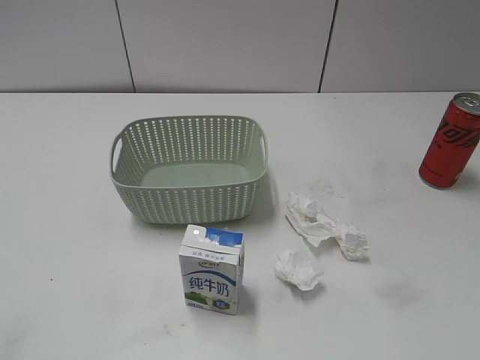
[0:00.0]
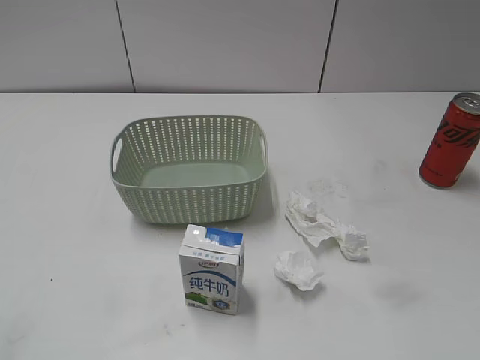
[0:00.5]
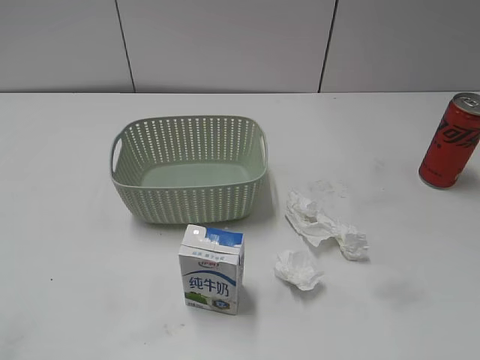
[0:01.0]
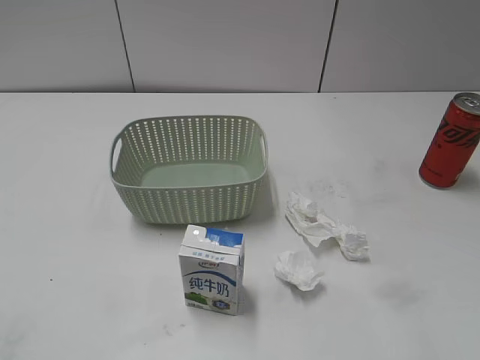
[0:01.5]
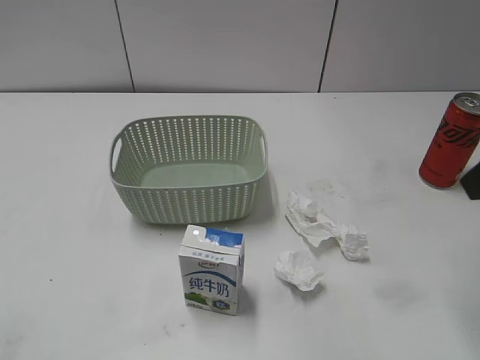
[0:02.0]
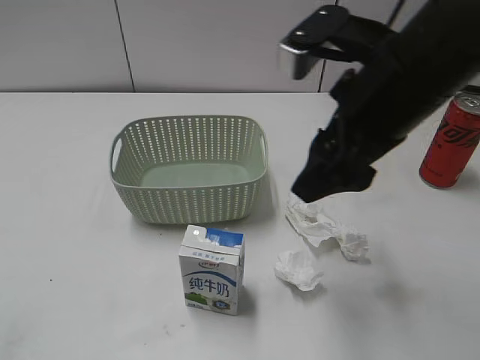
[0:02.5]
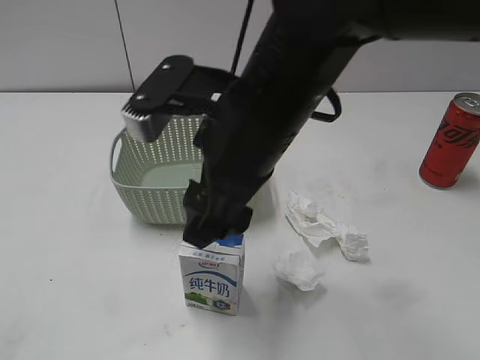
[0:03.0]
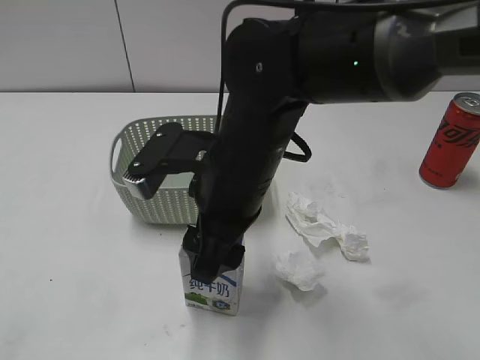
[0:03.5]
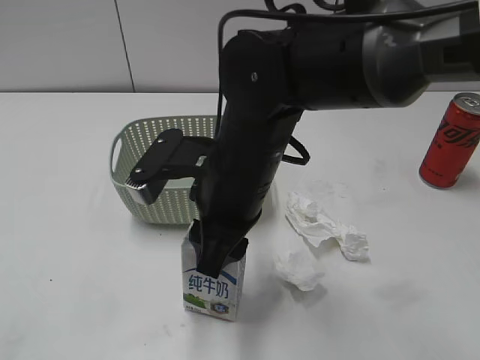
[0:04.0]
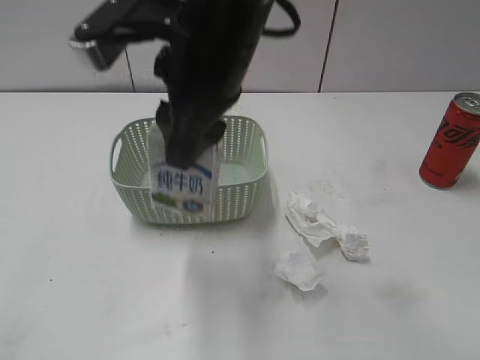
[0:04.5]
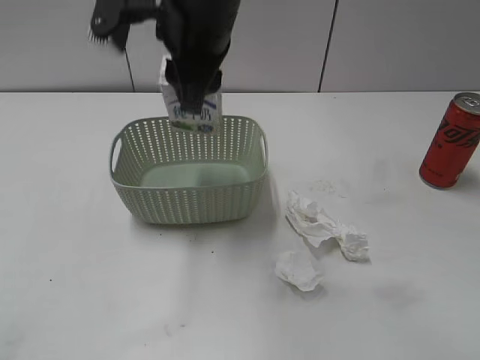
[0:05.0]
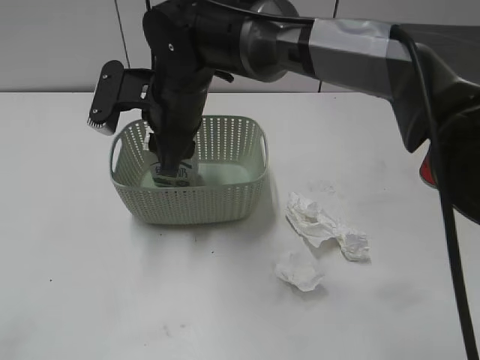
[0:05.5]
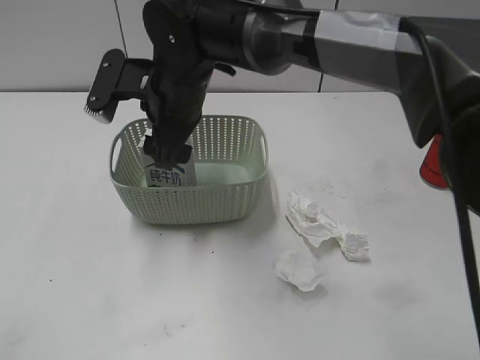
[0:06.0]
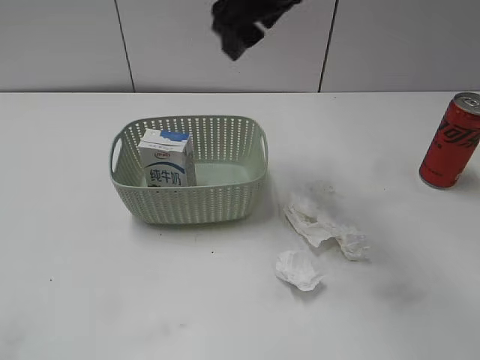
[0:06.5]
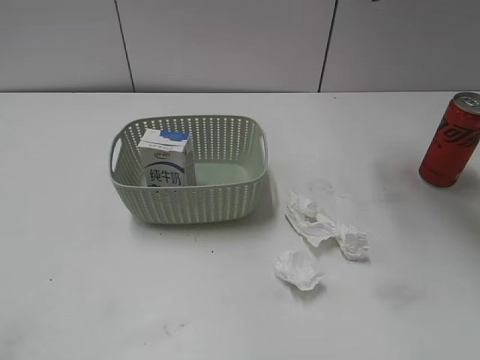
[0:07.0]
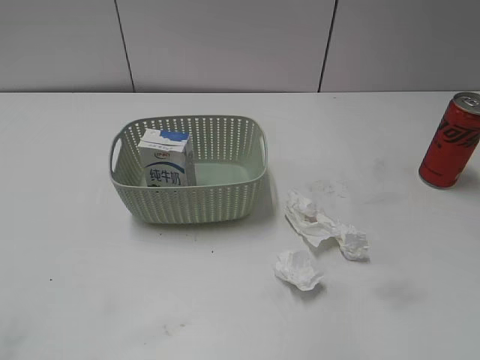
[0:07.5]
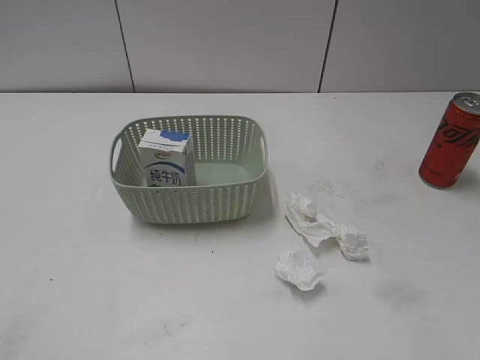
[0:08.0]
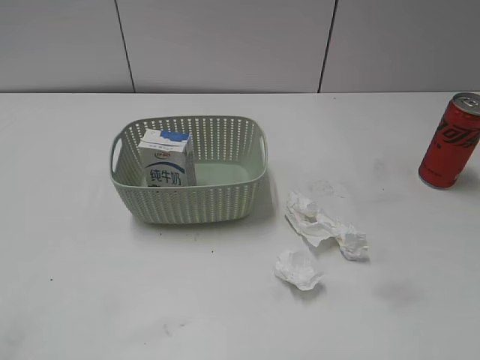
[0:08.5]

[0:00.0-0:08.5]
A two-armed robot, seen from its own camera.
Step, 0:02.0 to 0:03.5: Grasp the milk with right gripper.
Step, 0:04.0 to 0:06.0: Place the milk in the basket with right gripper.
0:02.0 to 0:04.0: The right gripper shifts about 30 cm to the left and downward, and closes its fingers.
0:04.0 to 0:06.5: The right gripper goes up and down, about 15 cm each way, reversing 2 times, and opens.
0:06.5 to 0:08.5: The right gripper goes some 40 cm backward and to the right.

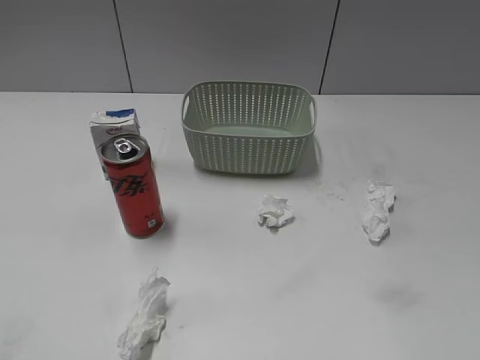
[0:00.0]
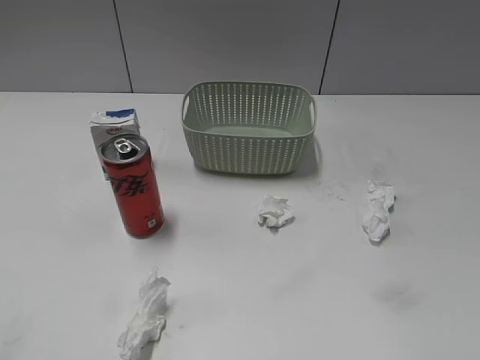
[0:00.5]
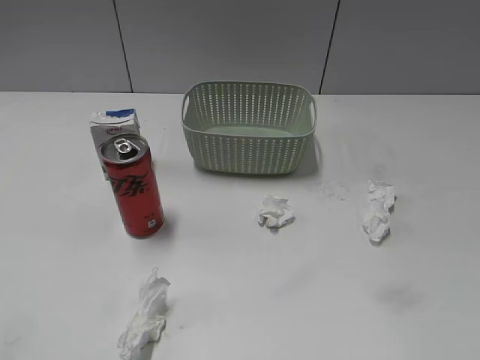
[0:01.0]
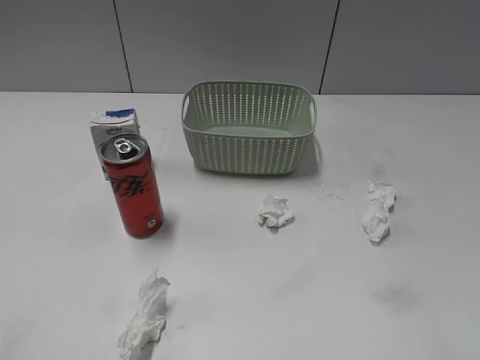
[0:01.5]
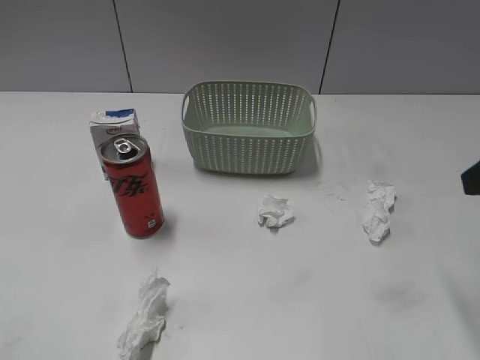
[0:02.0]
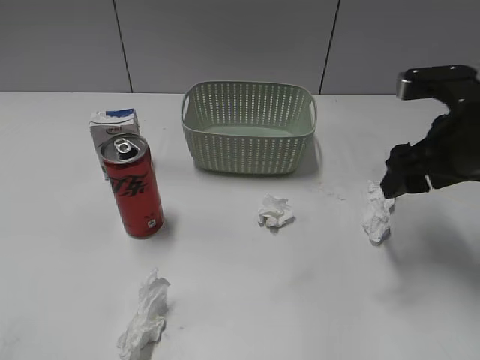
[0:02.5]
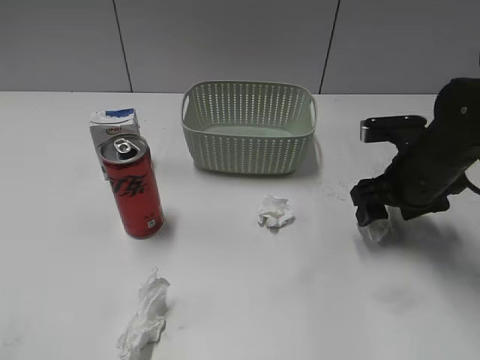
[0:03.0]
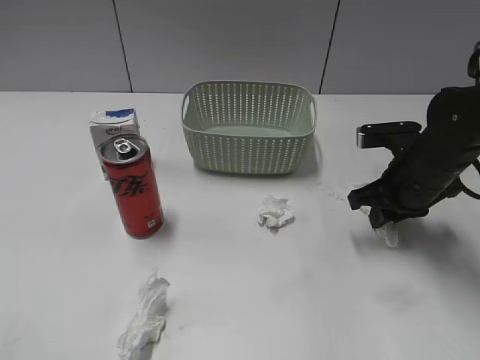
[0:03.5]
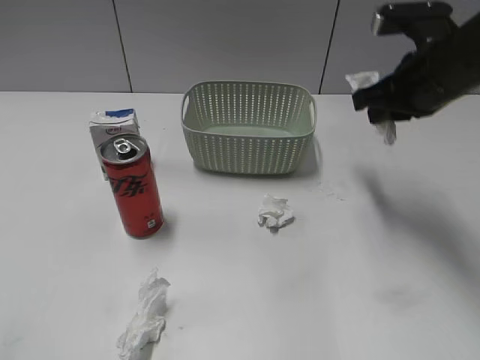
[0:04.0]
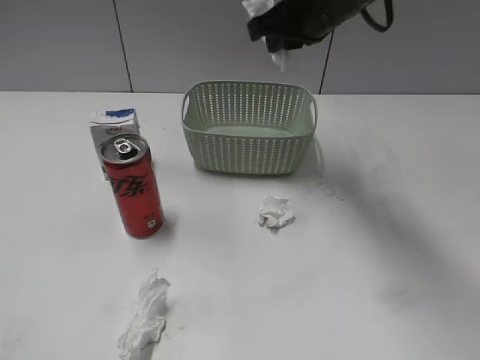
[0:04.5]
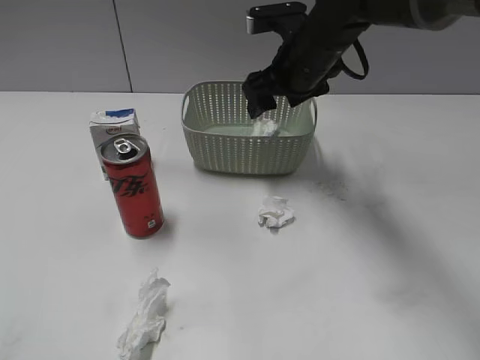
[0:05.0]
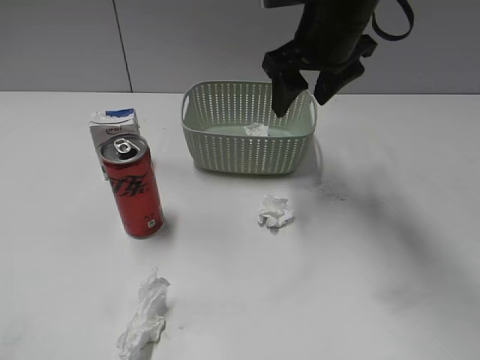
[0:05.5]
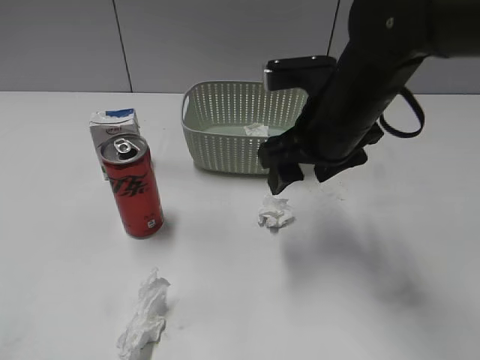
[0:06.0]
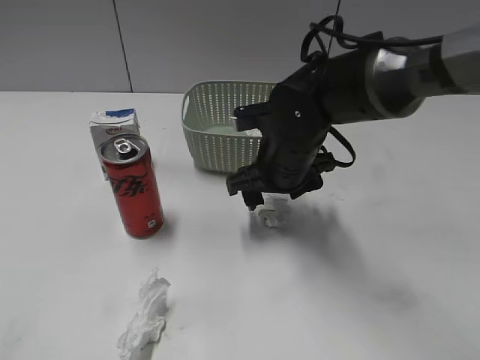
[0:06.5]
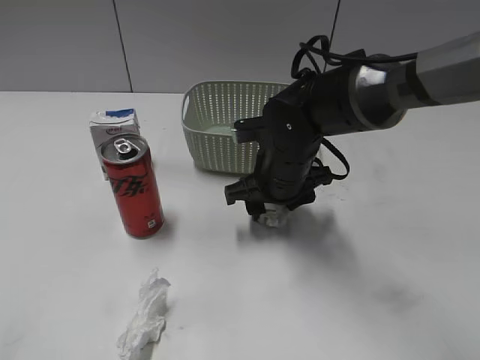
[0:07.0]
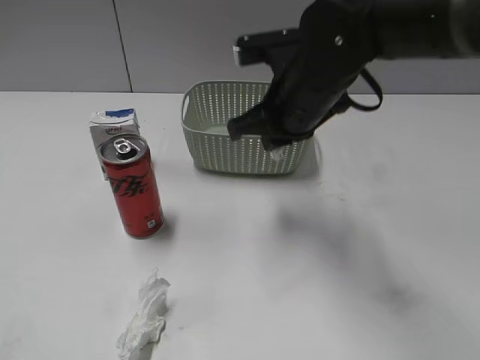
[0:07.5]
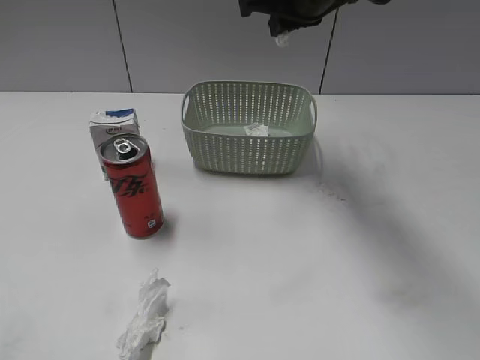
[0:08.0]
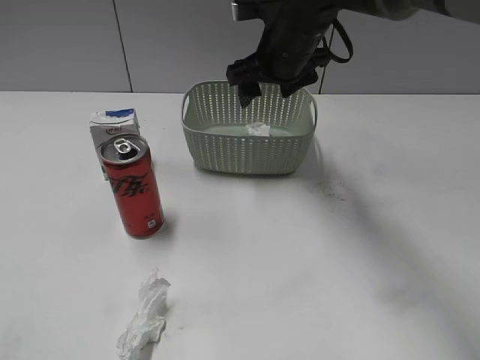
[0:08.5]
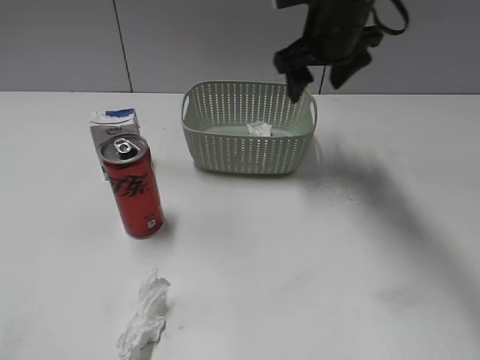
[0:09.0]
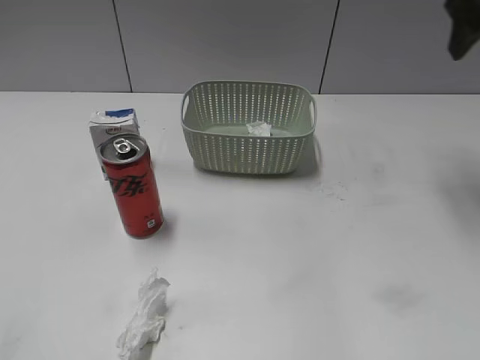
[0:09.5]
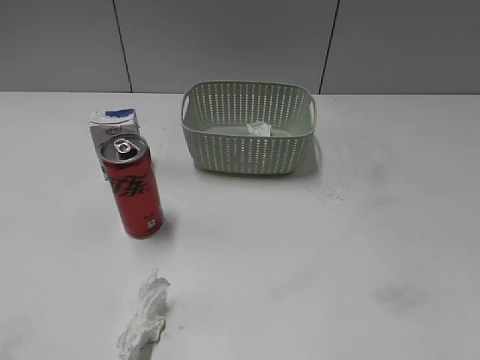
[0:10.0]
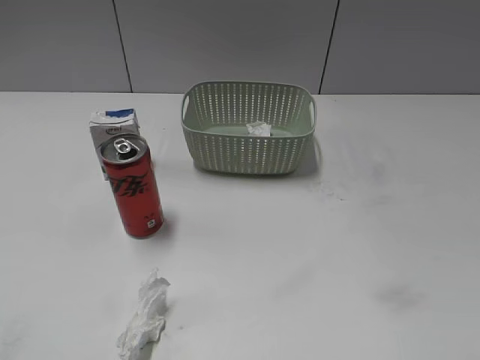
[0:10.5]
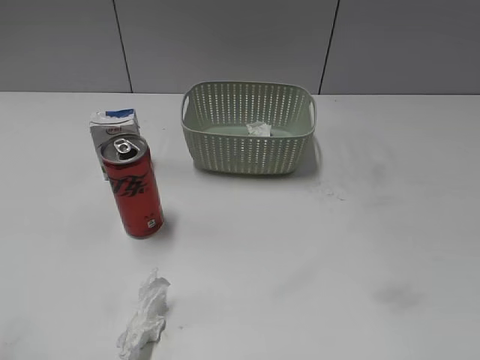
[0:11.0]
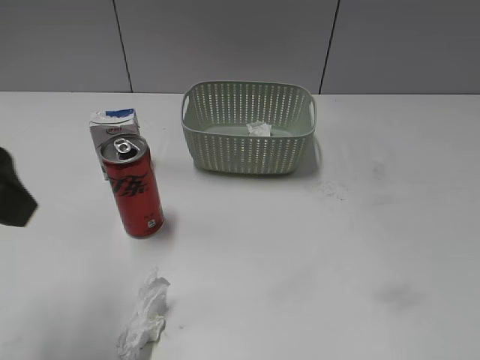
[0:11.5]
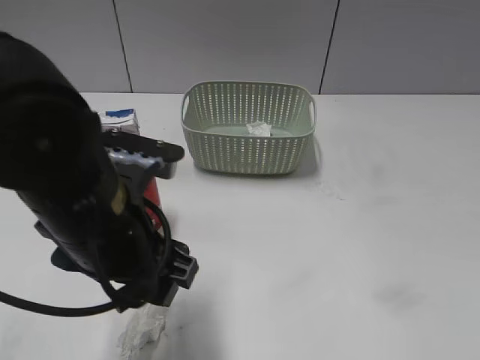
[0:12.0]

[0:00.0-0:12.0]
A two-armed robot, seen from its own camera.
Step, 0:02.0 to 0:03.5: Grasp the waste paper with right gripper.
Step, 0:04.0 to 0:05.0: Place the waste paper in the basket with right gripper.
Step, 0:05.5 to 0:07.0: Grasp the waste paper with right gripper.
Step, 0:07.5 to 0:08.5: Place the waste paper in the basket with right gripper.
0:02.0 to 0:04.0: The right gripper heads forward and to the left, covering approximately 15 cm, reaches about 15 cm downward, then returns, and closes.
0:04.0 to 0:06.0: The right gripper heads to the left, covering roughly 10 cm, goes forward and returns, roughly 10 cm each way, and opens.
0:06.0 to 0:08.0: The right gripper heads forward and upward, covering roughly 15 cm, and closes up.
0:08.0 to 0:10.0: The right gripper moves to the right and backward, roughly 30 cm, and opens its fingers.
0:10.0 to 0:12.0: The left gripper heads to the right, forward and downward, covering approximately 30 cm, while the right gripper shifts roughly 20 cm backward and downward.

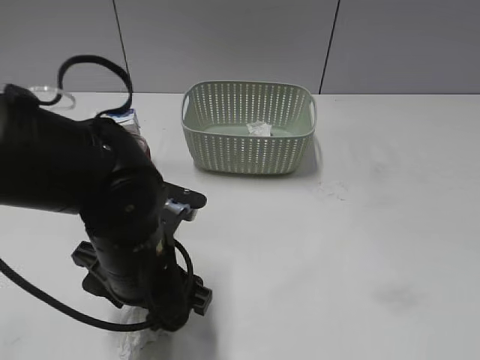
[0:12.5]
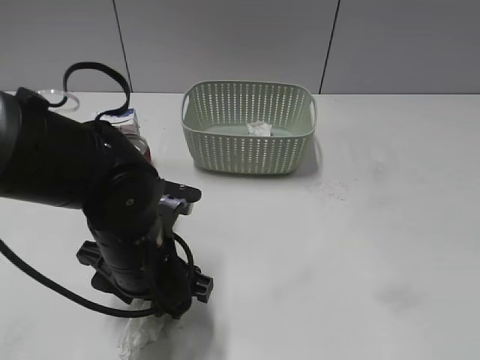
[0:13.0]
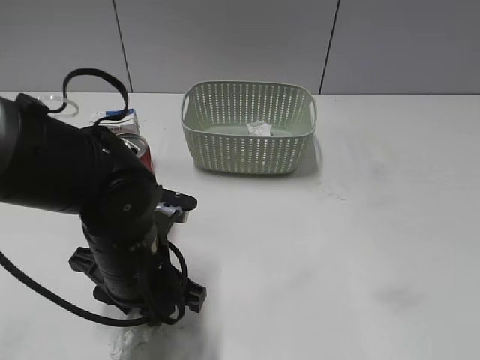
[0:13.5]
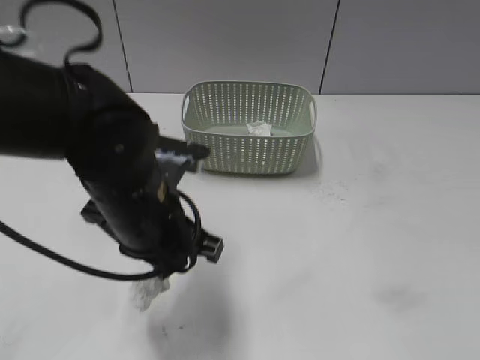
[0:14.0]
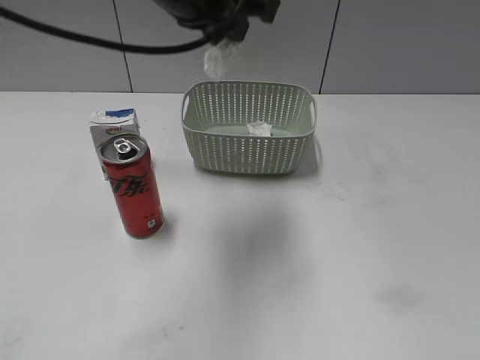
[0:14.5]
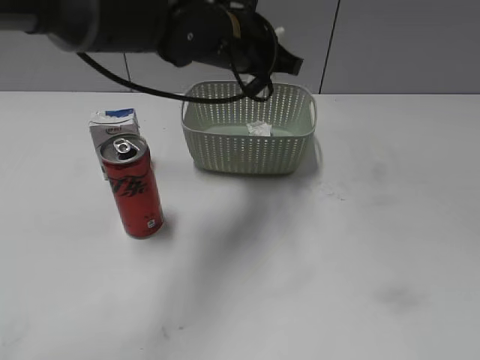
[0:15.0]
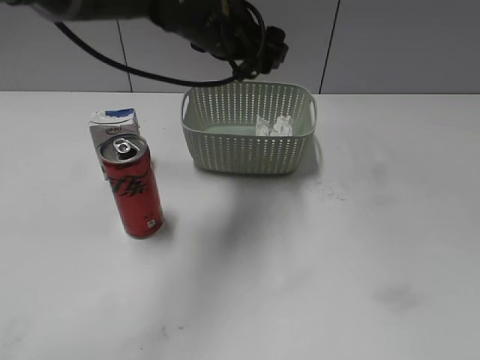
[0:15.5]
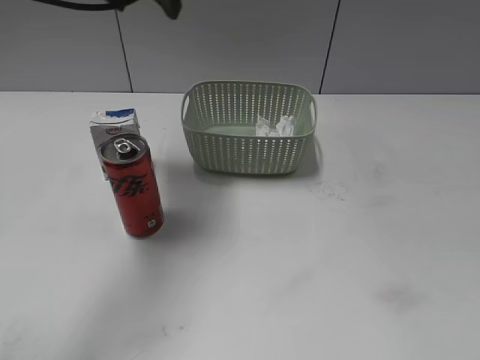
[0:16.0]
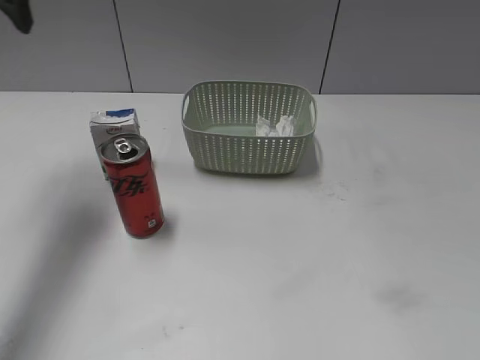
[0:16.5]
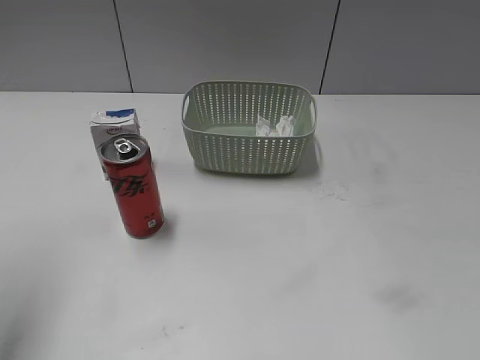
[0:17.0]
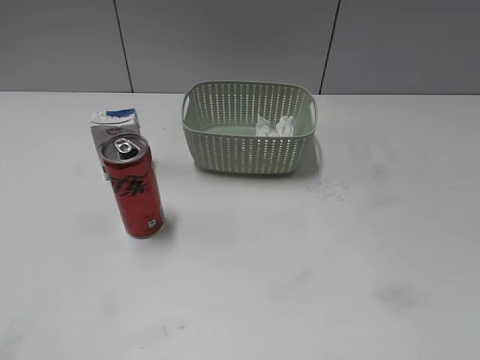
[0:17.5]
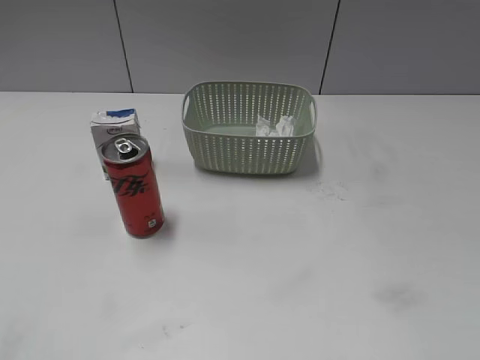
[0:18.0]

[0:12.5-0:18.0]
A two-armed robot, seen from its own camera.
Step, 0:14.0 to 0:15.5: Place the waste paper in the basket with left gripper.
0:12.5 to 0:14.5: The left gripper heads upward and forward, covering approximately 25 cm, and closes up.
0:14.5 to 0:16.0: The left gripper heads to the left and forward, covering about 10 cm, moves some 10 cm downward and comes back, and opens its fingers.
0:16.0 to 0:18.0: The left gripper goes some 40 cm backward and to the left.
